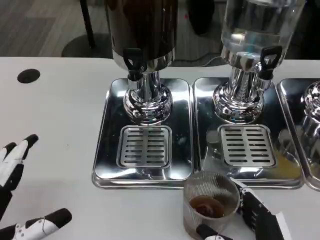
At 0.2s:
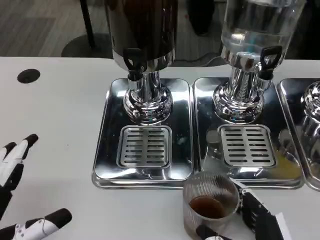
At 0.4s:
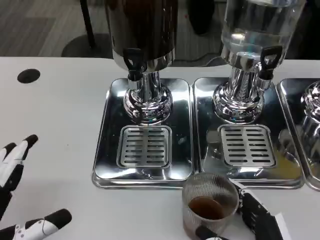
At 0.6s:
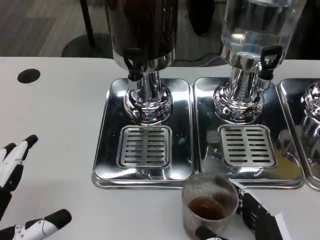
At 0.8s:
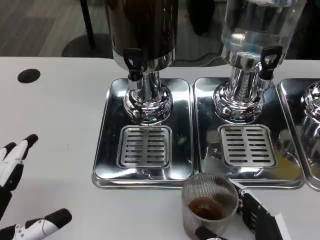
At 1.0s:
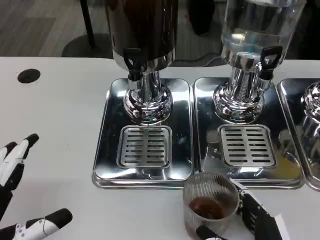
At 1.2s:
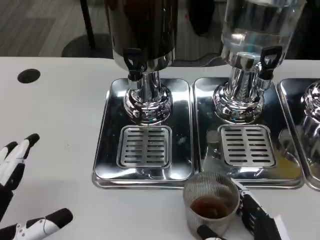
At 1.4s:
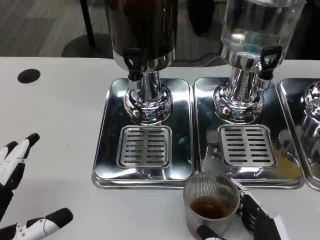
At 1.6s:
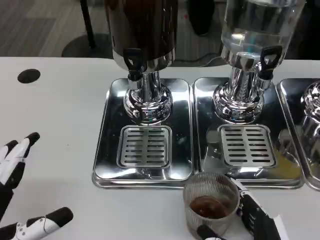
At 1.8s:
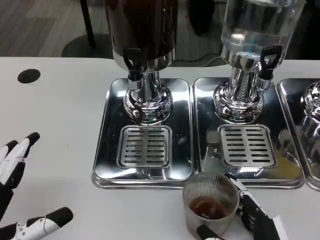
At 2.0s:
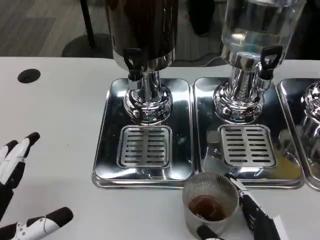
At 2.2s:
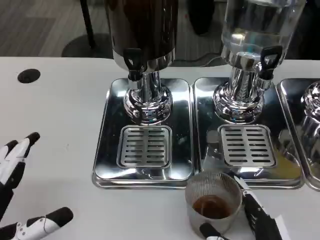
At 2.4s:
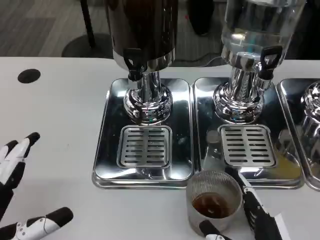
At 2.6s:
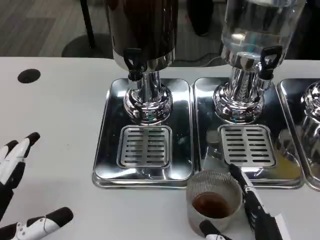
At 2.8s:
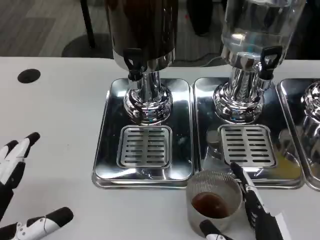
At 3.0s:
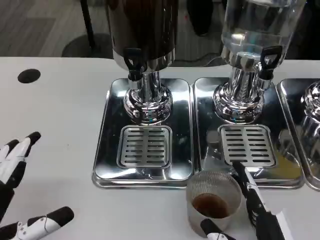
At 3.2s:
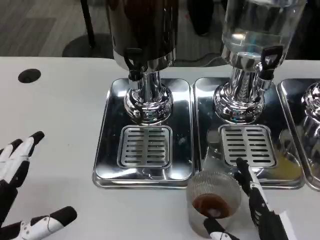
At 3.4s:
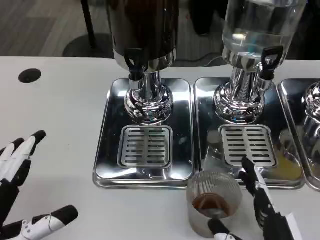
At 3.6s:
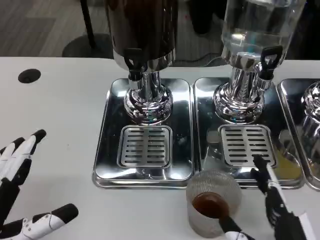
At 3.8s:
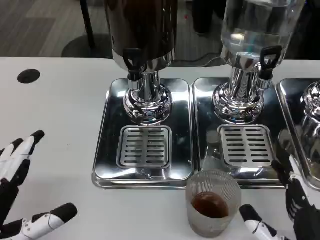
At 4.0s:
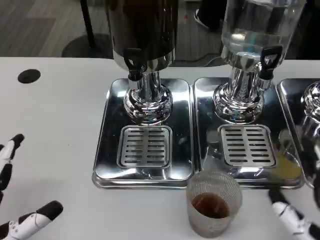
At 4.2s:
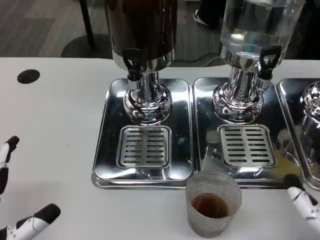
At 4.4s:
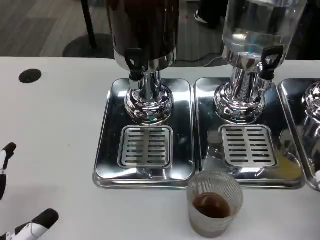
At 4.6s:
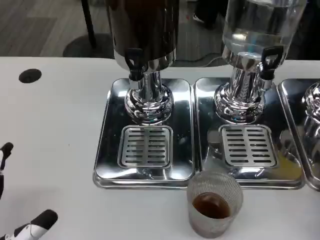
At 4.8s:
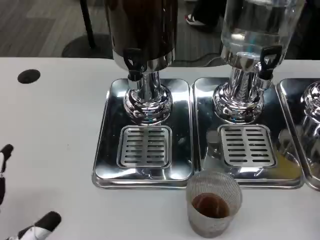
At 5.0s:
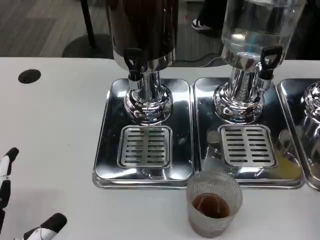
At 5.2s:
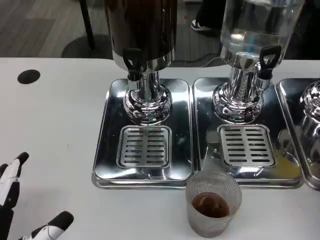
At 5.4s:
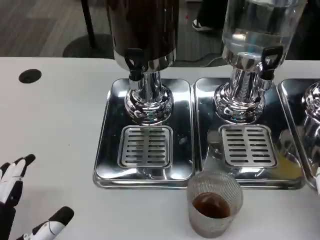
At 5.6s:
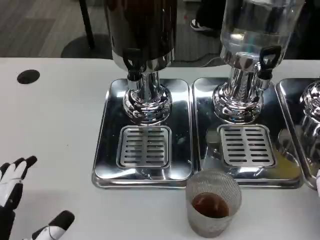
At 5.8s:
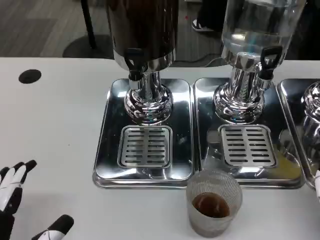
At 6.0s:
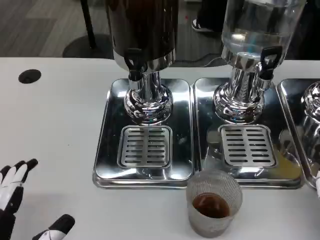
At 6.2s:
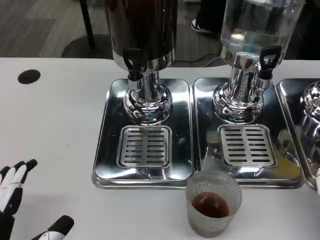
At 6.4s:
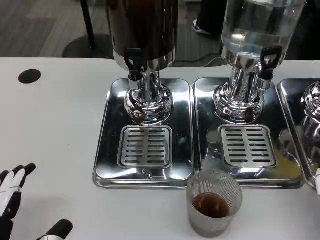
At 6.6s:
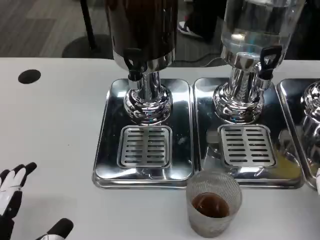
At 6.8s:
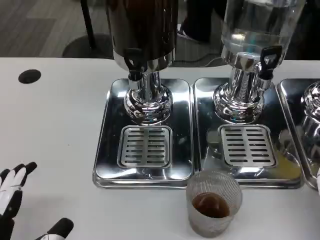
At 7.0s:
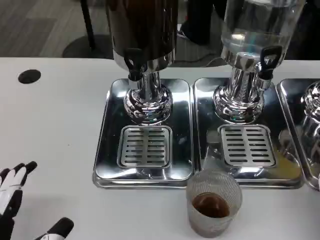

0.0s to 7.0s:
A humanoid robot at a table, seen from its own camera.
Task of the whole recording: Grasp the cup under the faucet to collect the drink, then remove the cup.
0.0s to 2.8s: The two hands keep their place.
2.8s to 4.2s: The right hand moves to the right, about 10 cm.
5.6s to 7.0s: Both hands stay about where they are.

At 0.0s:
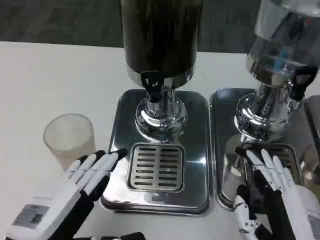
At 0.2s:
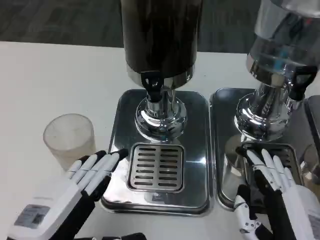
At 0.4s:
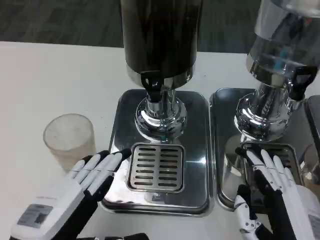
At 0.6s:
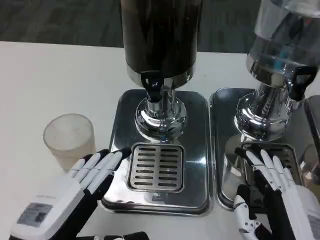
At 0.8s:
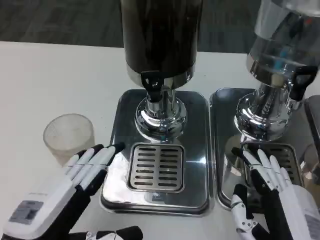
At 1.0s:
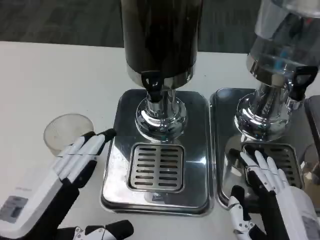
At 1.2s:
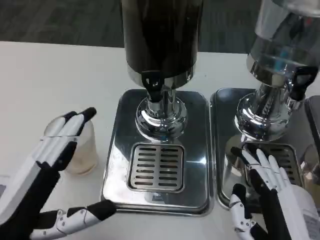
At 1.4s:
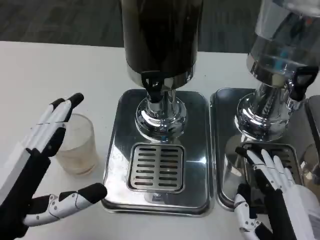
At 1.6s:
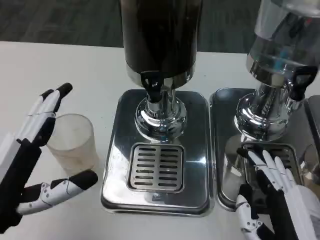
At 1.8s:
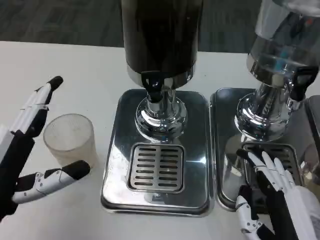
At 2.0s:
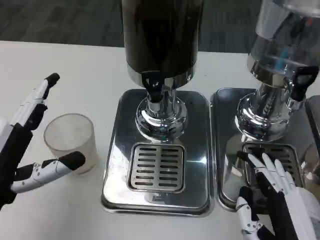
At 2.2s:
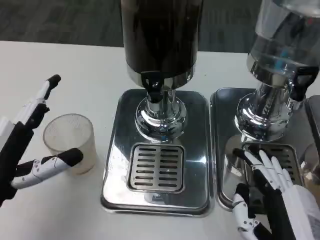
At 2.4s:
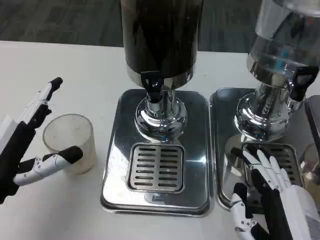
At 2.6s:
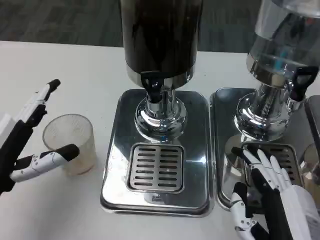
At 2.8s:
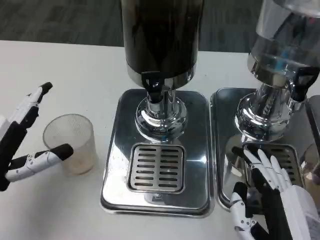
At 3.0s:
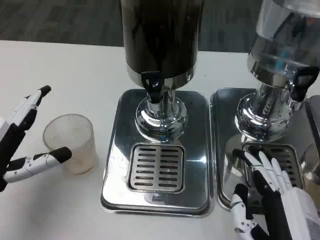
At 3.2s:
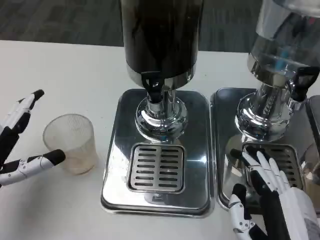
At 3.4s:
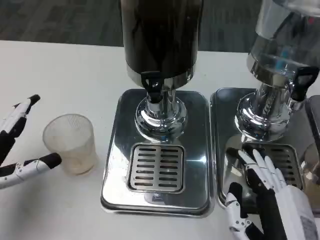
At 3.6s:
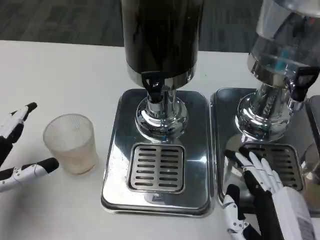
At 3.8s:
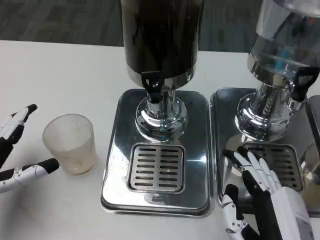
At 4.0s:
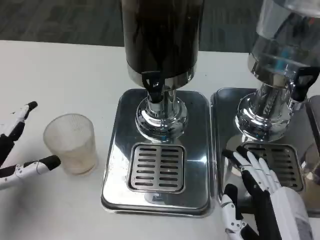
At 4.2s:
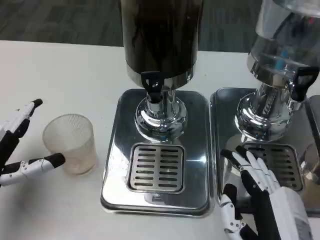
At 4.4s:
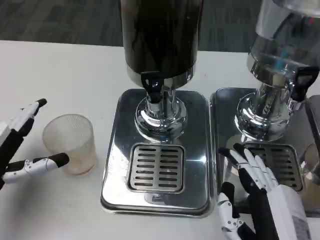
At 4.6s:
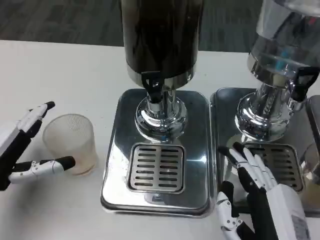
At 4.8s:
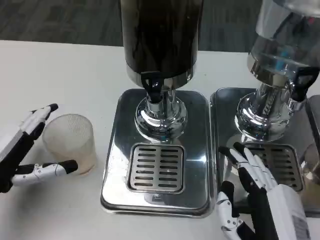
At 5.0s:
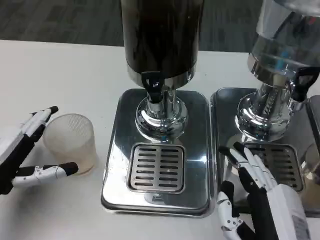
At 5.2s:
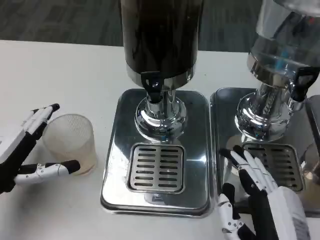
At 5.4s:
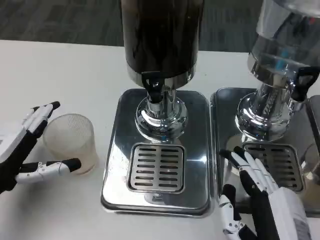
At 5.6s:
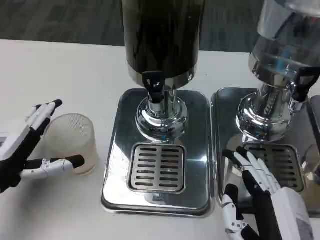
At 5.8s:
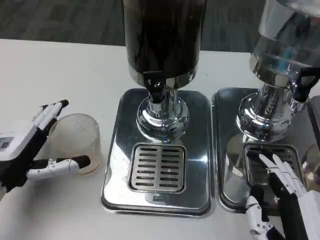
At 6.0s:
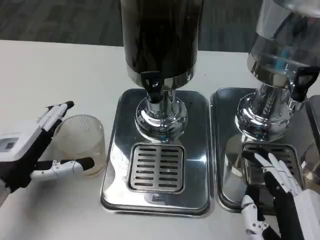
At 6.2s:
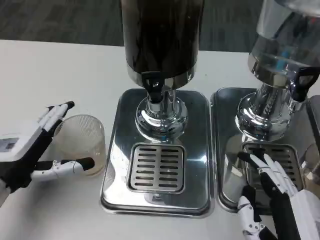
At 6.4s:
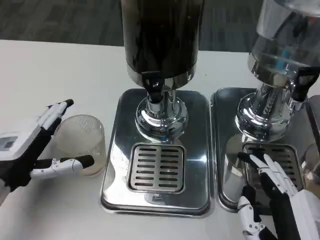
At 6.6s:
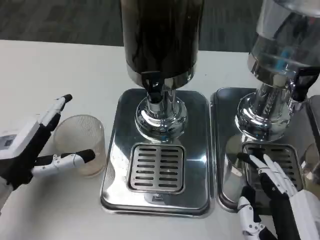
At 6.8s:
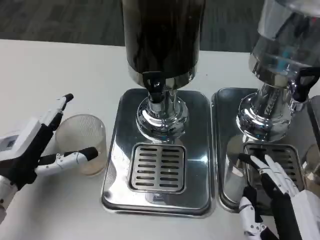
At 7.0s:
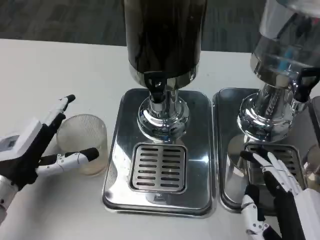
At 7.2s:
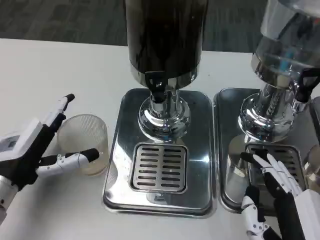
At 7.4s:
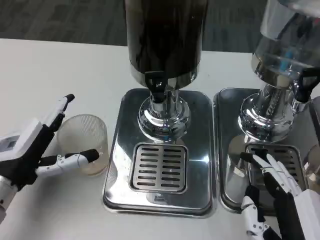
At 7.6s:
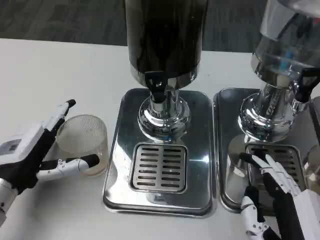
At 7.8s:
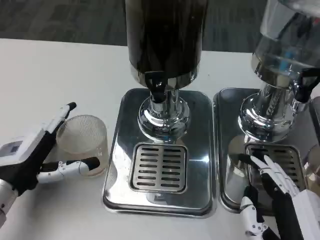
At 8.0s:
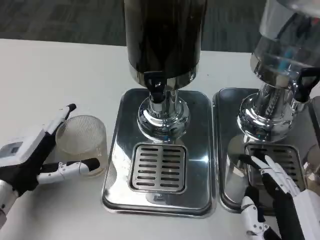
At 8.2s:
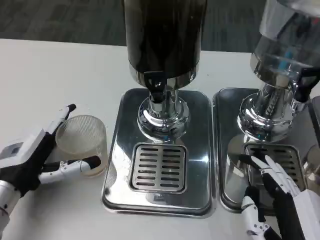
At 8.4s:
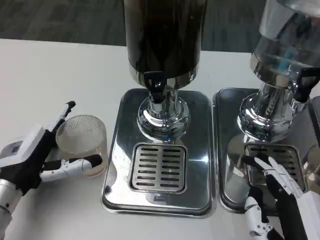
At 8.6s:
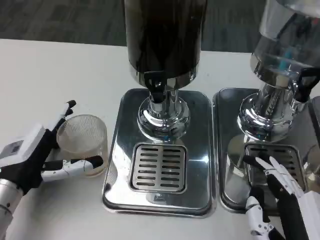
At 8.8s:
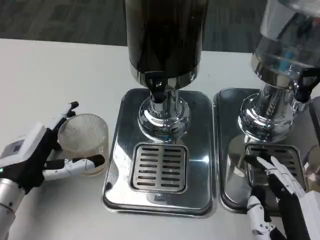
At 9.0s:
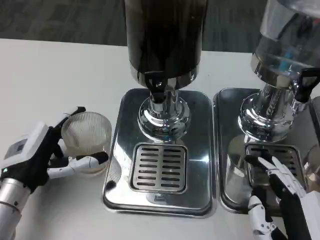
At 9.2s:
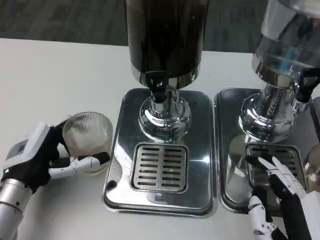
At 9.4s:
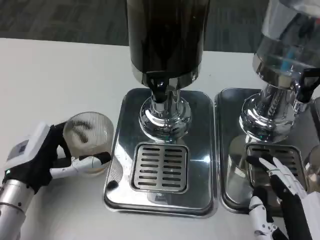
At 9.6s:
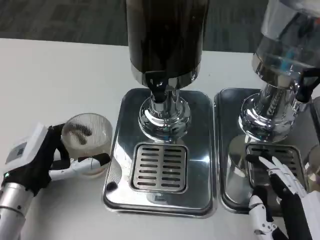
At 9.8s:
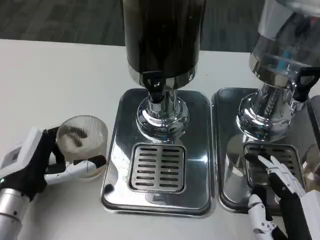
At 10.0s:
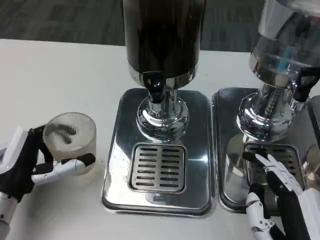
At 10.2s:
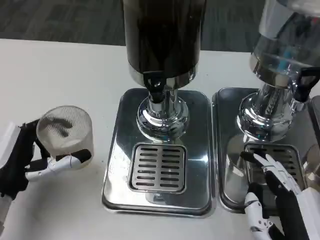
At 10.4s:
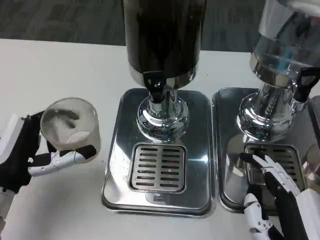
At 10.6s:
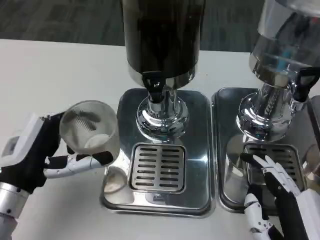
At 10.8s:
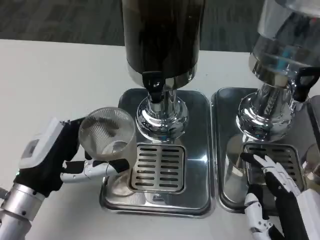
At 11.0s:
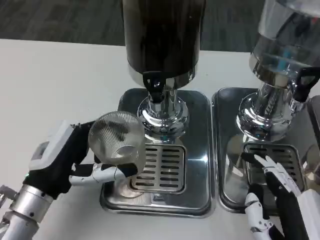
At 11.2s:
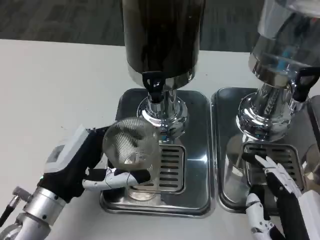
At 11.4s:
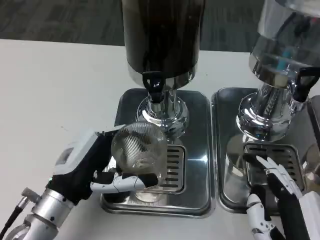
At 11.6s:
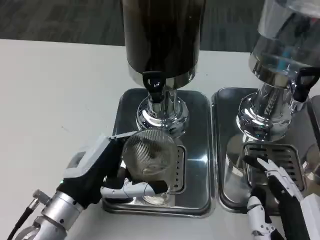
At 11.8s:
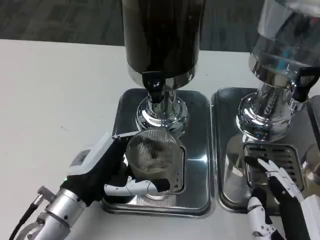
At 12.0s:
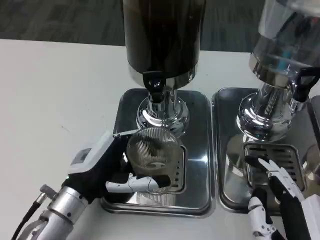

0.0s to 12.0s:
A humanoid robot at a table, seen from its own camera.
Task of the whole recording: Grasp the cup under the faucet to collect the drink, then remove the cup.
0.0s to 1.6s: The left hand shifts by roughly 5 cm.
1.6s to 3.0s: The left hand heads forward and to the left, covering some 10 cm.
3.0s to 7.6s: The hands move only a little.
7.6s to 9.0s: The hands make only small movements.
10.4s to 12.0s: The left hand shifts roughly 10 cm to the right.

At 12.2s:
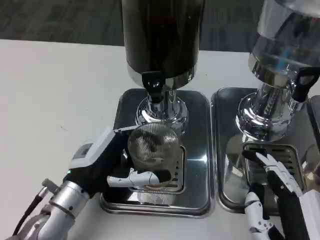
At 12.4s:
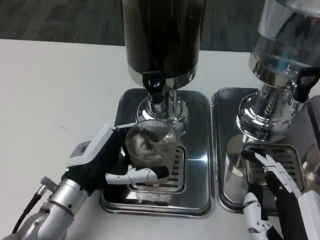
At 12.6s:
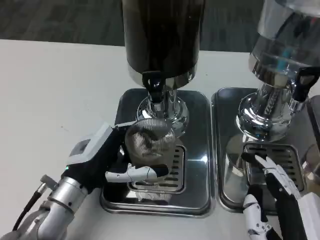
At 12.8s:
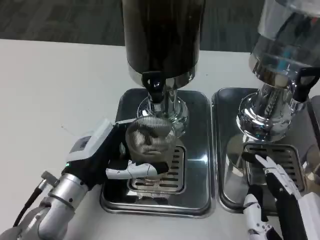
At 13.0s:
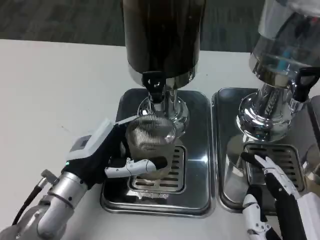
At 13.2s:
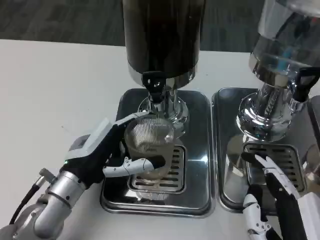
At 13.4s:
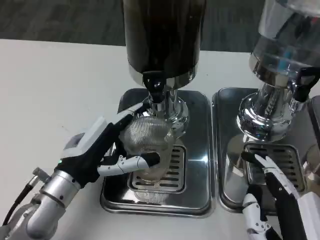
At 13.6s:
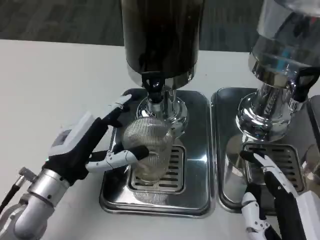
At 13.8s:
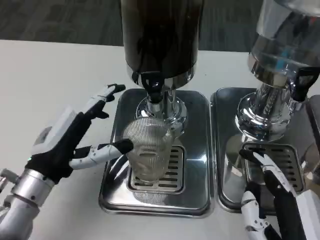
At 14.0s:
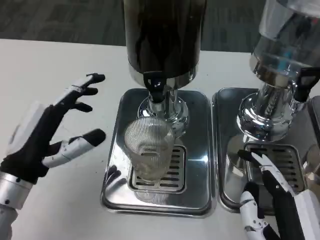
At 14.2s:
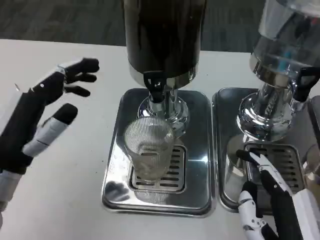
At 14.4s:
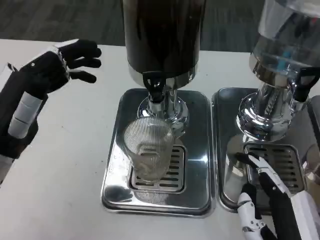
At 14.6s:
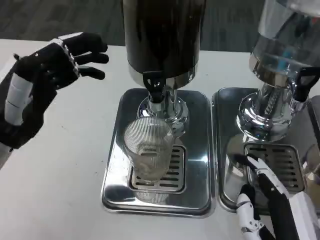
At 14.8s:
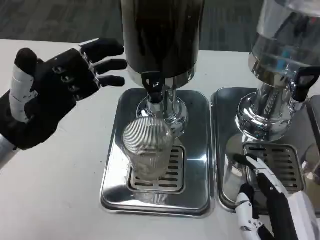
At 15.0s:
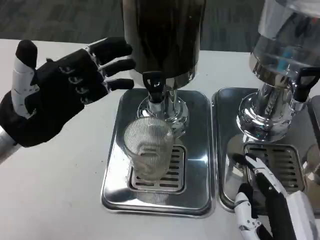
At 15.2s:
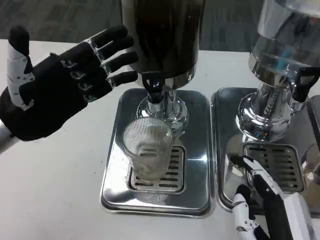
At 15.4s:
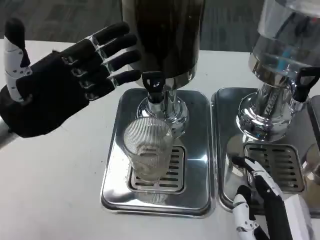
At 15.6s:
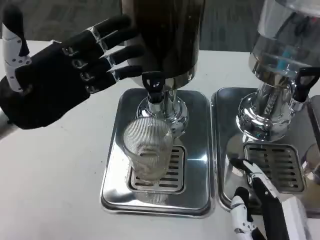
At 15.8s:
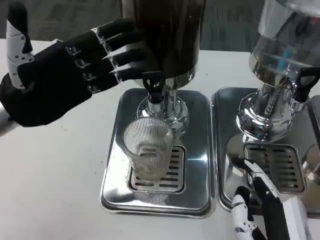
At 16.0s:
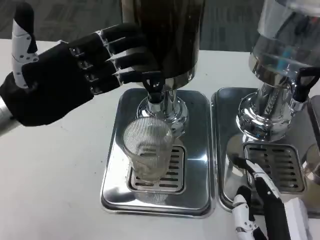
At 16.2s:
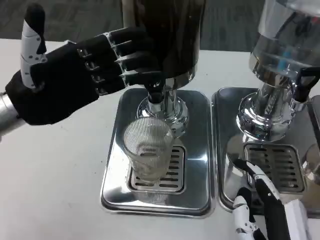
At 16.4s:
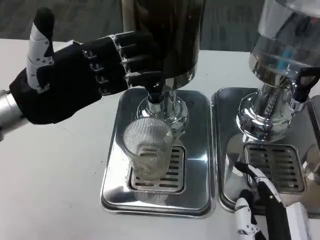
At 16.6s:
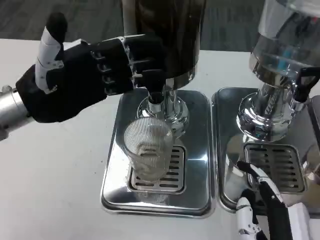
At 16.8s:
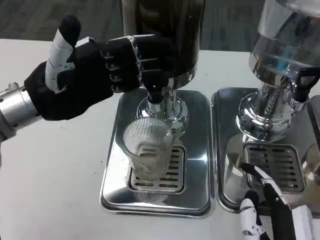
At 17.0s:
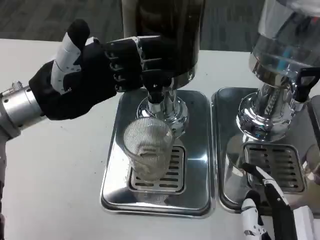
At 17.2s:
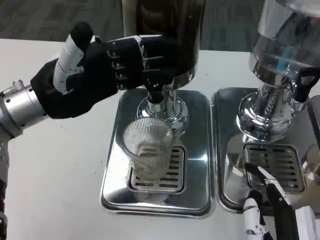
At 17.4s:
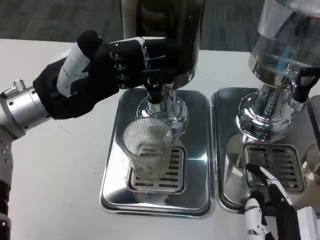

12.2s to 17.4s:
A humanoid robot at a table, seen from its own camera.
Task of the whole recording: Grasp the cup under the faucet to collect the drink, then remove the cup.
12.2s to 14.0s: The left hand travels to the left by some 5 cm.
14.0s to 15.6s: The left hand is displaced upward and forward by some 10 cm.
